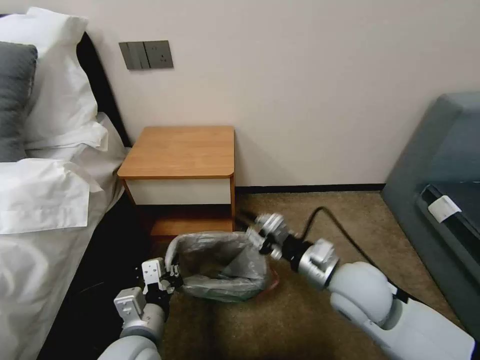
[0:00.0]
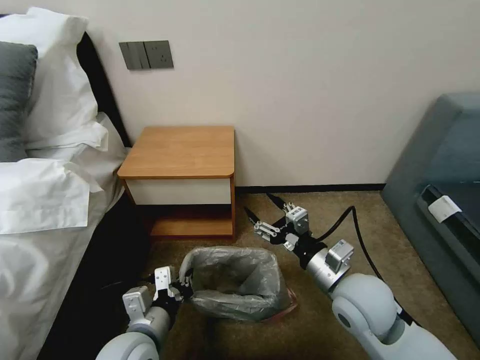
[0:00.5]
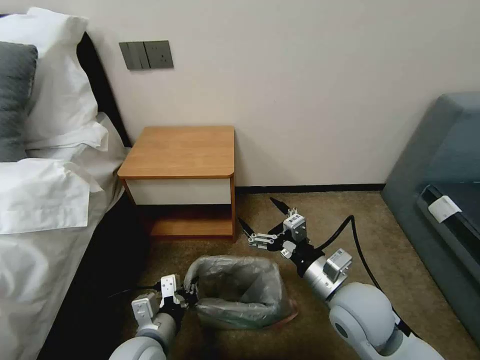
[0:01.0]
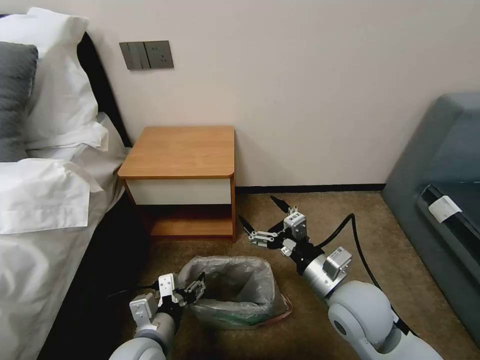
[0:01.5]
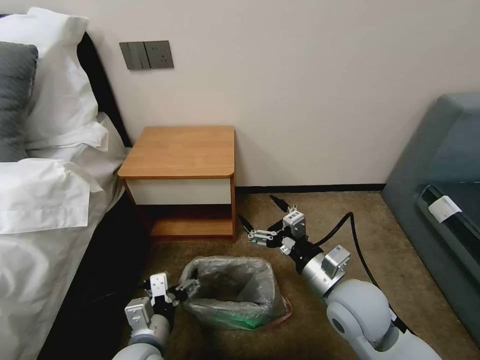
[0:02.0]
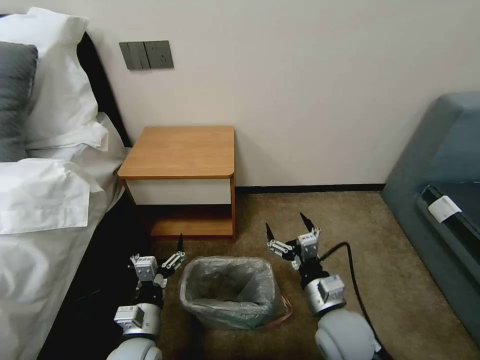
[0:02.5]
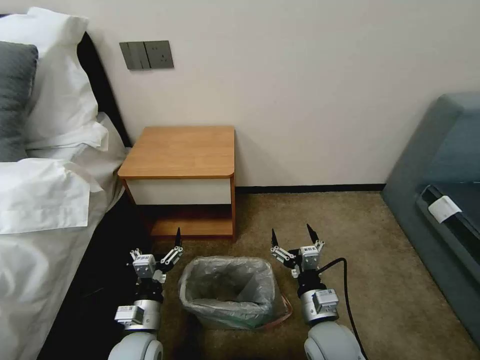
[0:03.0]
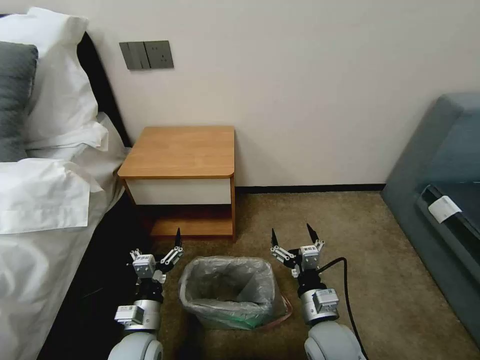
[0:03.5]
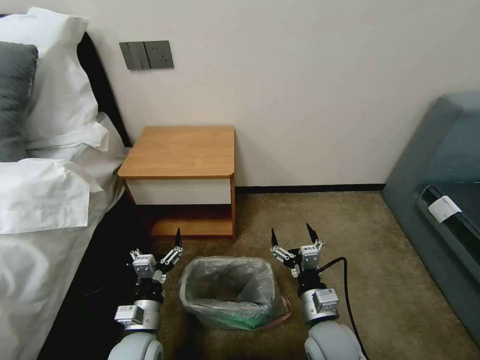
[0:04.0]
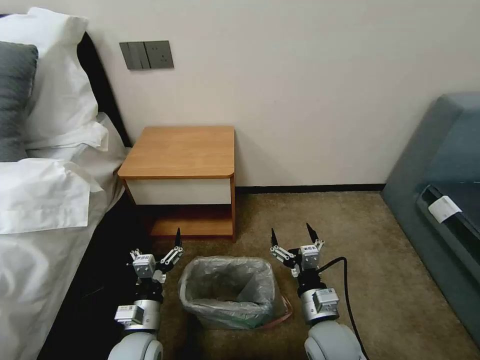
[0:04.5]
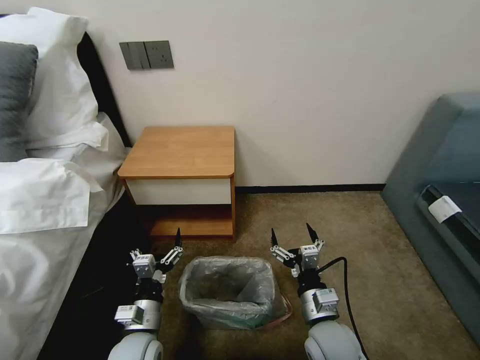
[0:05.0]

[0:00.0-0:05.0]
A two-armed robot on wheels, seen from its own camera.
Task of the whole recording: Pick up the garbage bag from the table and place it over the trash can.
0:00.0 to 0:02.5: The right gripper goes some 15 cm backward and to the right, and opens. Meanwhile the left gripper goes about 5 cm downward, and opens up.
0:02.5 to 0:05.0: The grippers stay close to where they were, moving slightly.

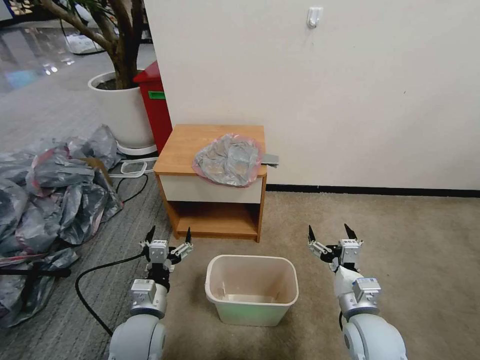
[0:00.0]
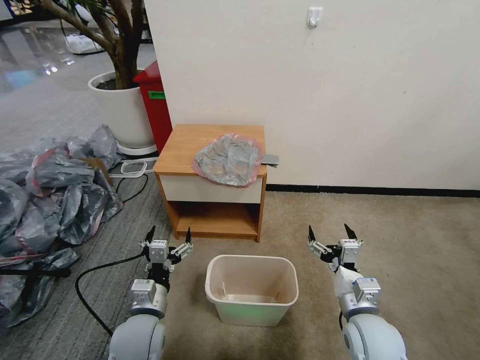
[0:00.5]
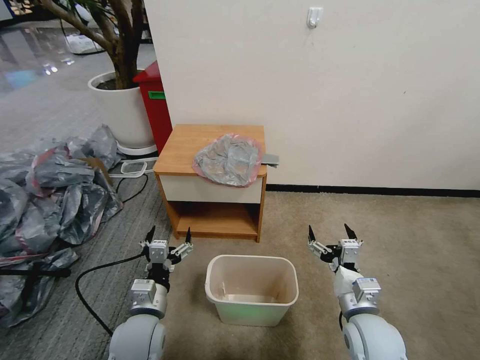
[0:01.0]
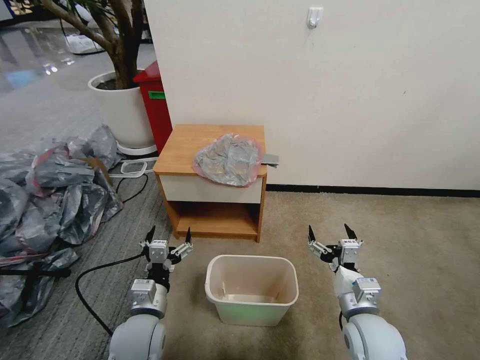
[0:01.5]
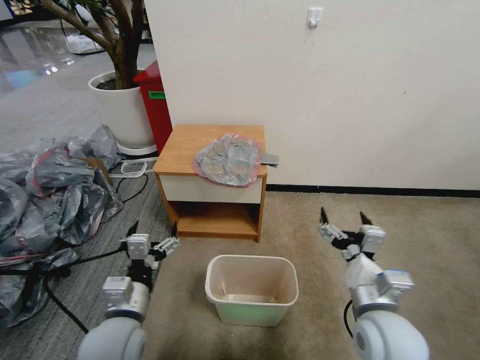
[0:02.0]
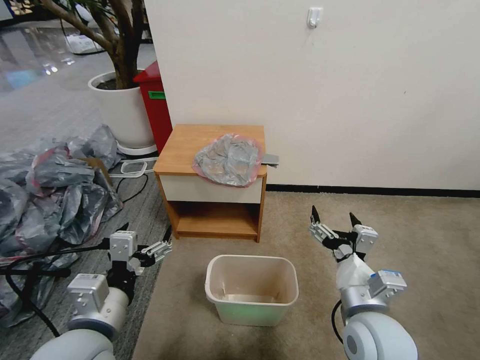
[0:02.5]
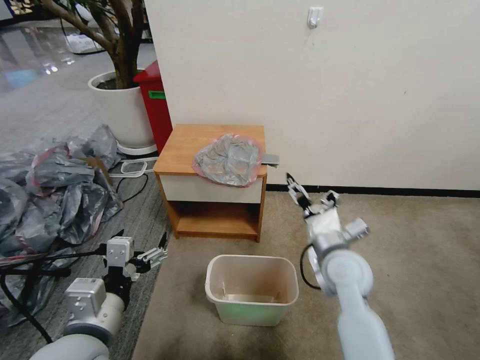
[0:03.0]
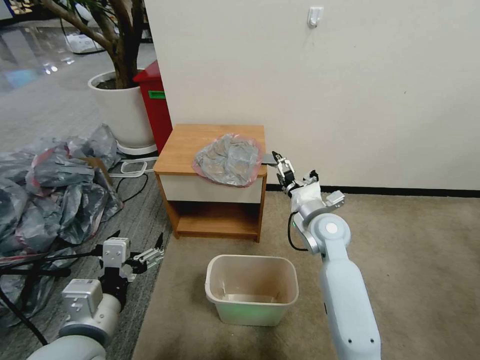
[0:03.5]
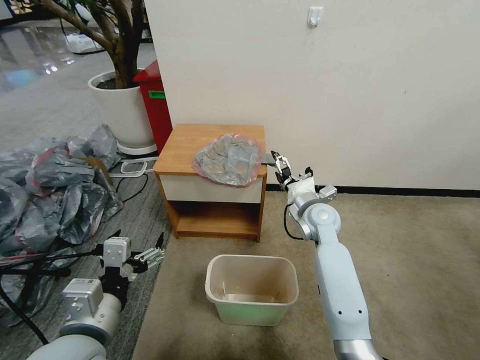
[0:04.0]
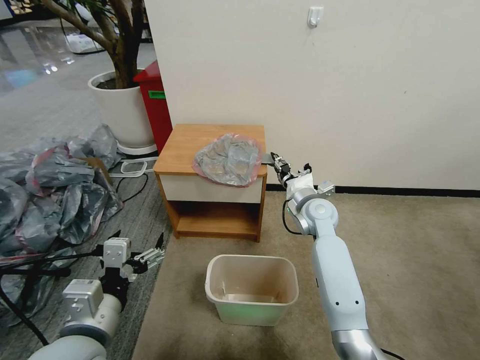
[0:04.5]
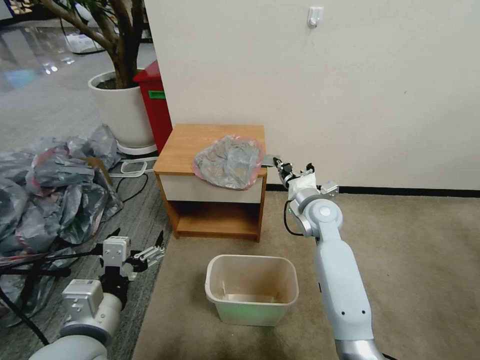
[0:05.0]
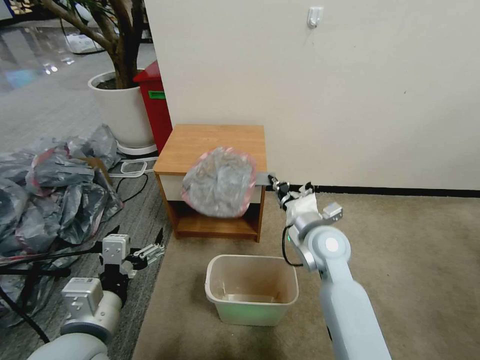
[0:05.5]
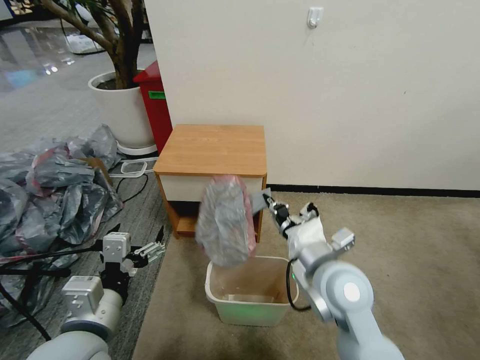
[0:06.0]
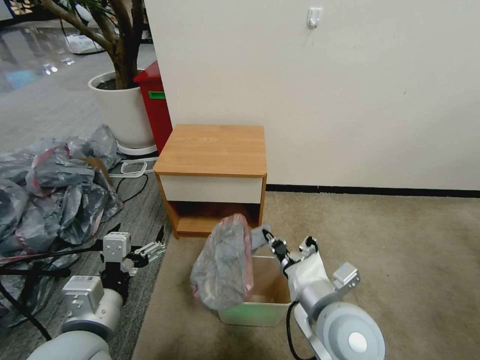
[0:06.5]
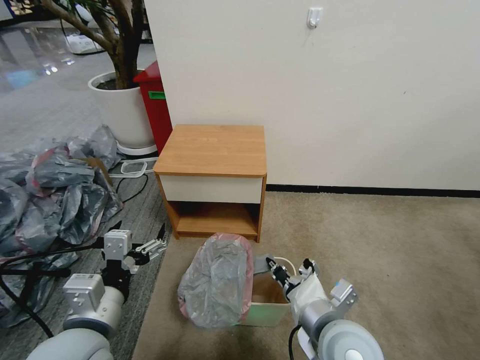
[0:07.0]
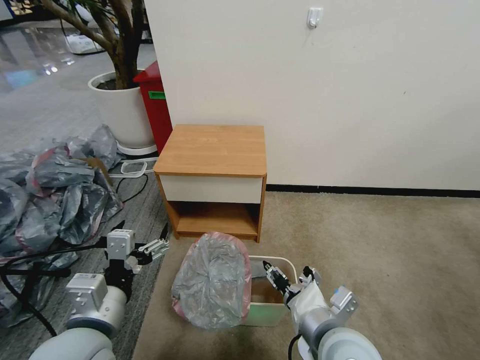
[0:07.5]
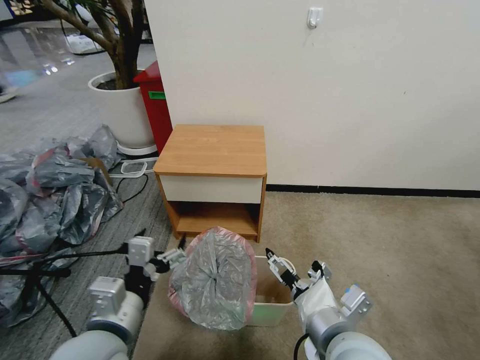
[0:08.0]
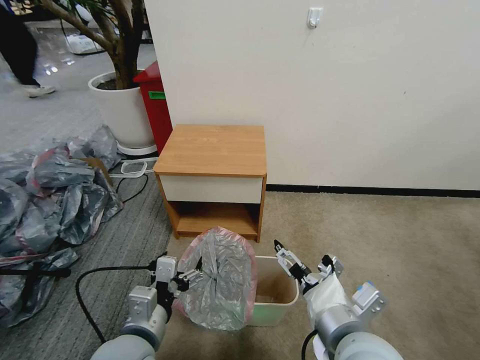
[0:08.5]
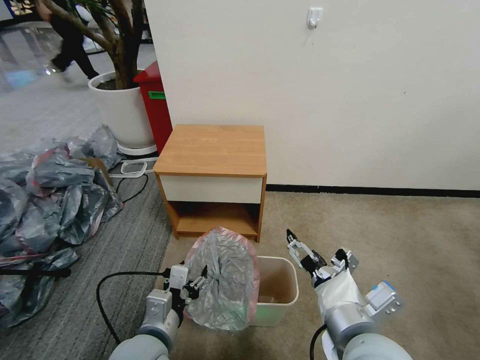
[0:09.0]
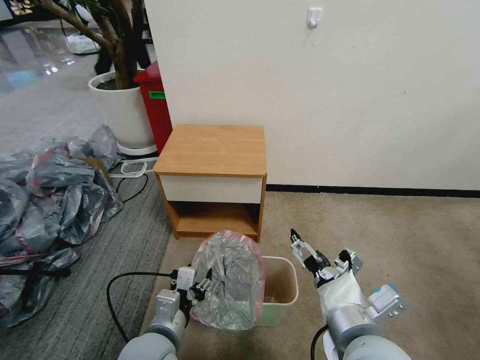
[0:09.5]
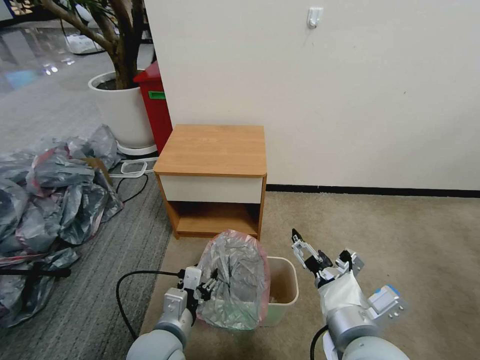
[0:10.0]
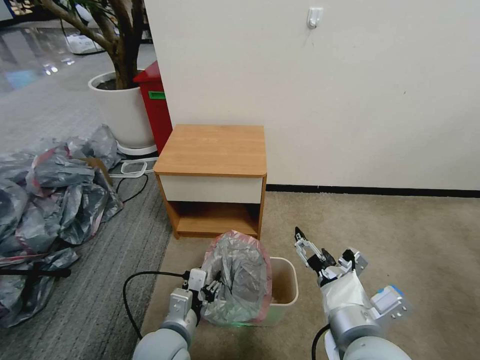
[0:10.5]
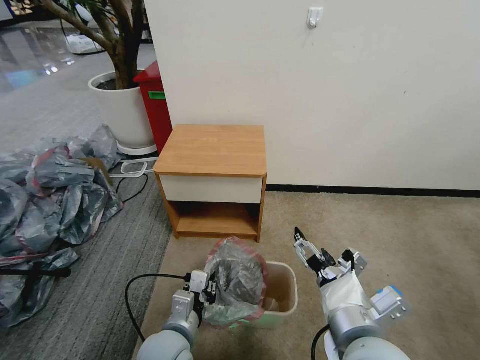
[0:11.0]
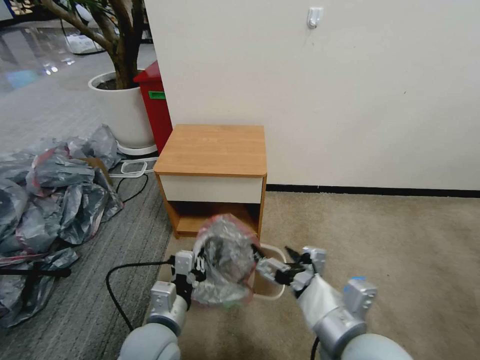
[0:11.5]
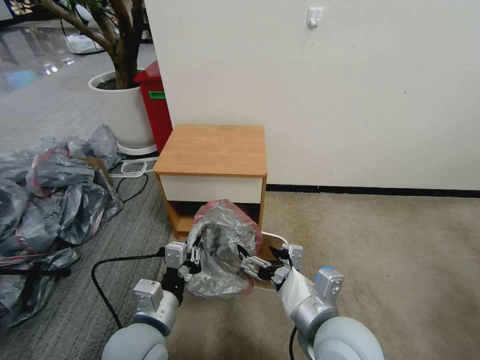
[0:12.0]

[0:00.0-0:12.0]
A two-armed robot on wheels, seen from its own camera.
Task of the whole recording: Pick up the garbage bag from the table and place it over the trash can.
0:02.0 to 0:04.0: The right gripper goes approximately 25 cm forward. Meanwhile the left gripper goes approximately 10 cm upward.
0:04.0 to 0:06.0: The right gripper heads backward, covering about 20 cm, and closes its fingers.
0:06.0 to 0:08.0: The right gripper travels backward by roughly 10 cm, and opens its fingers.
0:08.0 to 0:10.0: The left gripper moves downward and to the right, roughly 15 cm, and closes its fingers.
0:10.0 to 0:12.0: The left gripper ends up approximately 5 cm from where it was, and closes its fingers.

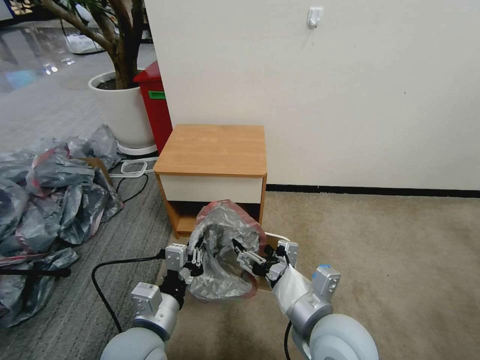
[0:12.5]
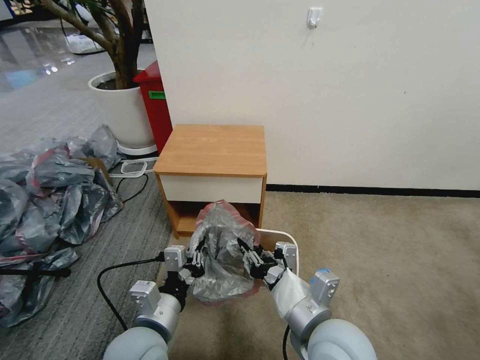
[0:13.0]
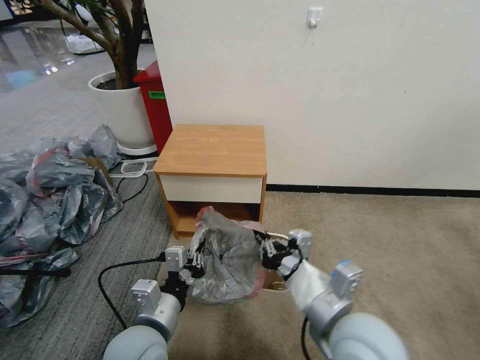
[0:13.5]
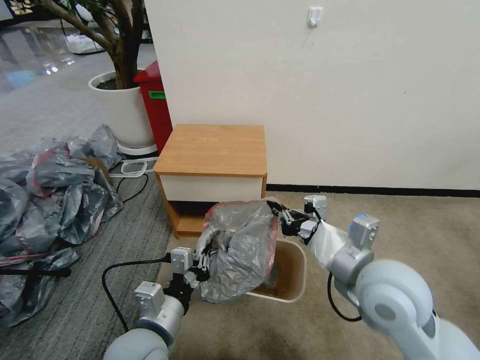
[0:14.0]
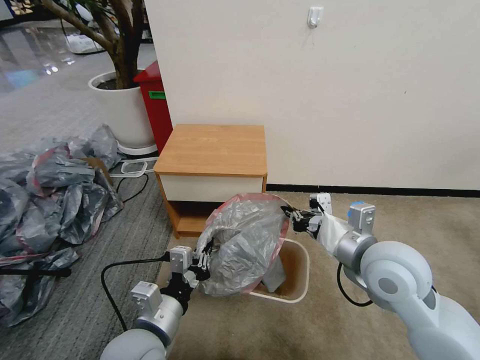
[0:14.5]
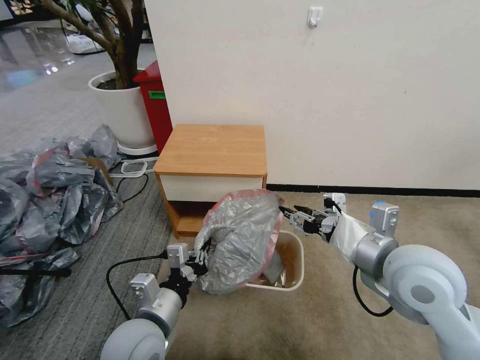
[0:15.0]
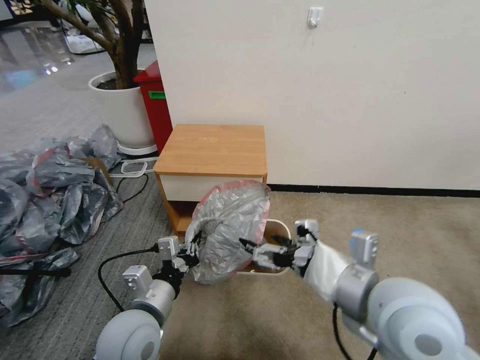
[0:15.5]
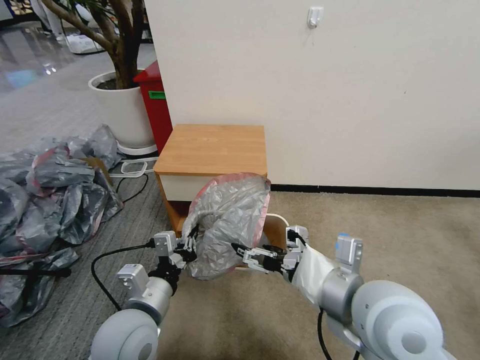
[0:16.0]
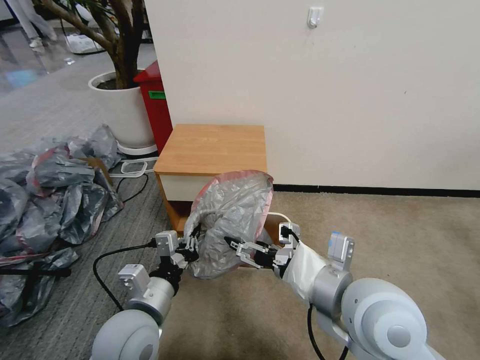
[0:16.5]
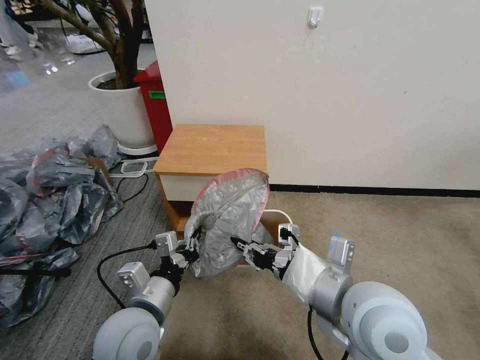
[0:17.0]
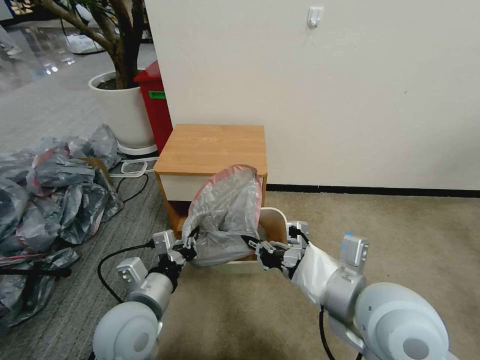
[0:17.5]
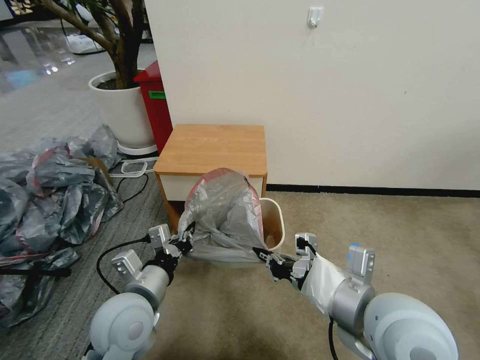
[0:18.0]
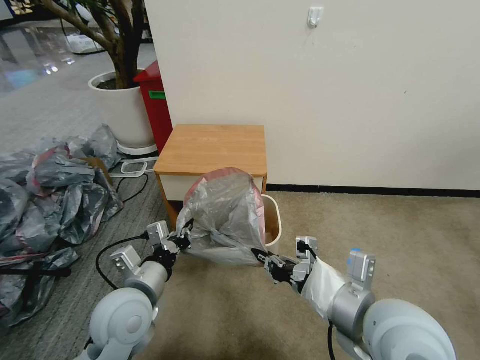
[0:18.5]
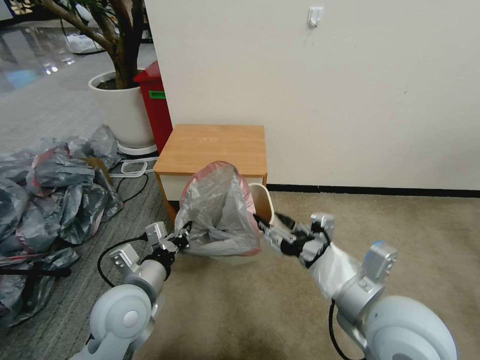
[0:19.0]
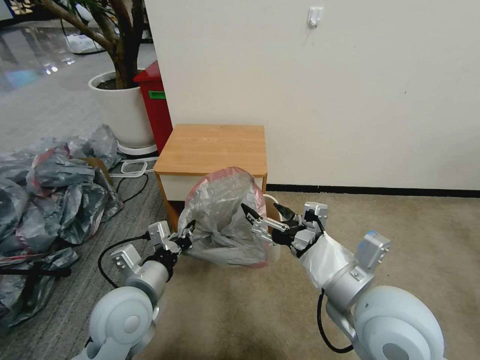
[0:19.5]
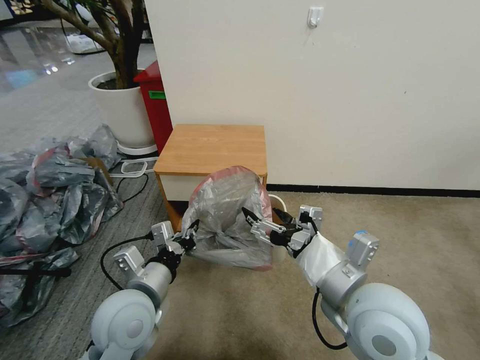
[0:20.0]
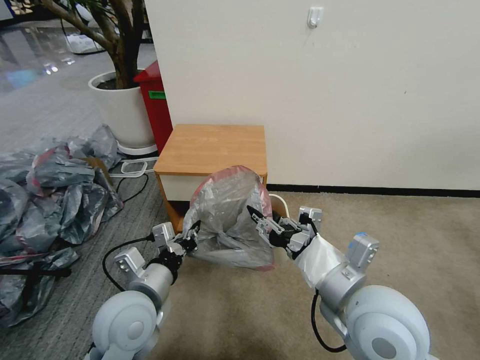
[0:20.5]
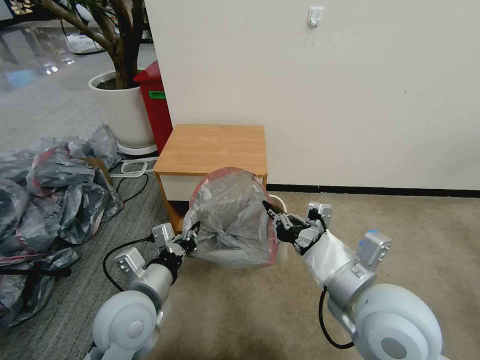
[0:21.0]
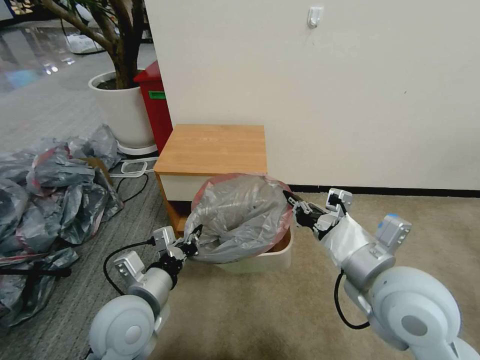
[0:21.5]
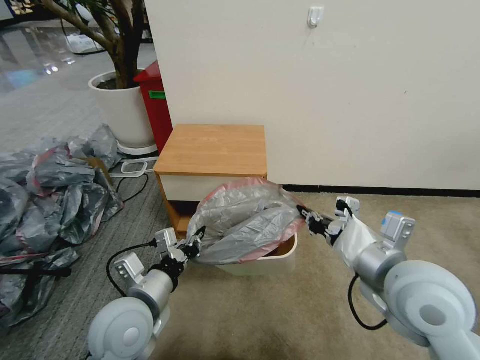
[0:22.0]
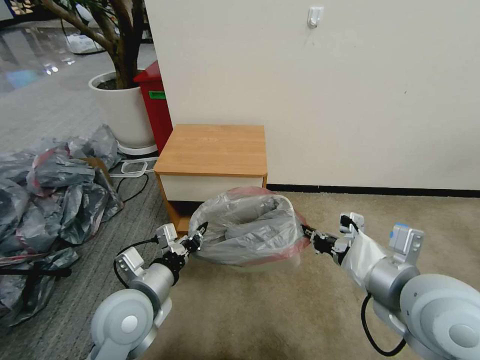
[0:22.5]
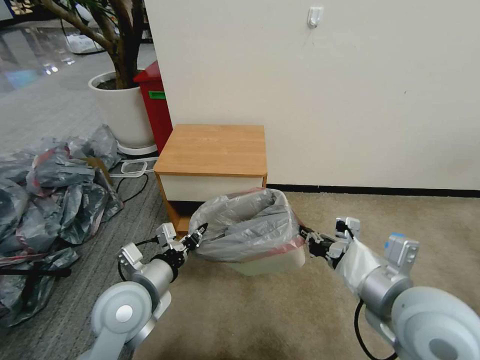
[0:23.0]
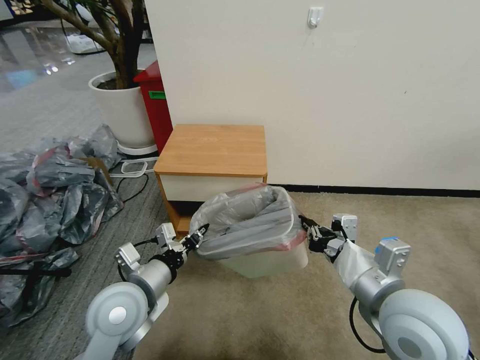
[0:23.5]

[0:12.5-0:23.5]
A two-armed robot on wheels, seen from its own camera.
Task of the whole recording: Pick up the garbage bag from the table and place it over the trash can.
0:12.5 to 0:14.5: The right gripper moves to the right, forward and upward, roughly 15 cm, and closes up.
0:14.5 to 0:16.0: The right gripper travels backward and to the left by roughly 10 cm, and opens its fingers.
0:16.0 to 0:18.0: The right gripper closes its fingers.
0:18.0 to 0:20.0: The right gripper opens its fingers.
0:20.0 to 0:21.5: The right gripper closes.
0:21.5 to 0:23.5: There are only small adjustments of the grippers.
